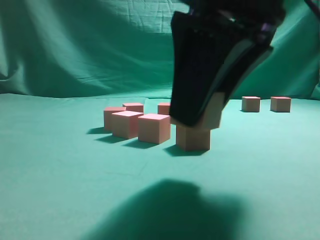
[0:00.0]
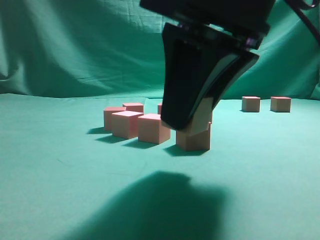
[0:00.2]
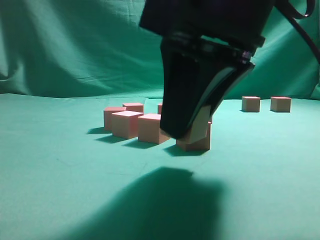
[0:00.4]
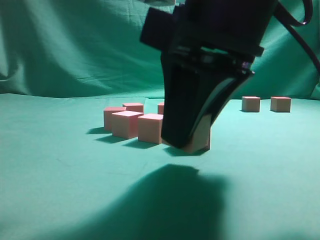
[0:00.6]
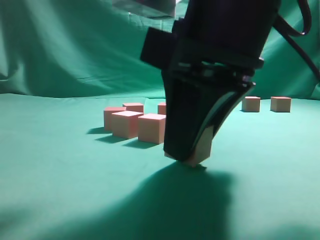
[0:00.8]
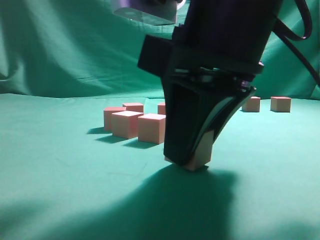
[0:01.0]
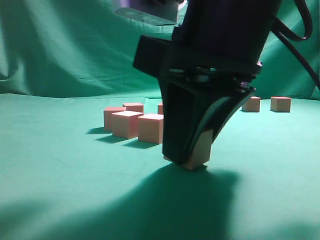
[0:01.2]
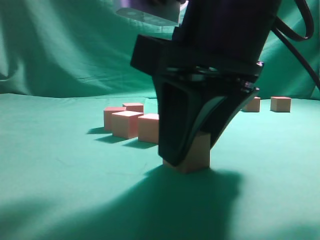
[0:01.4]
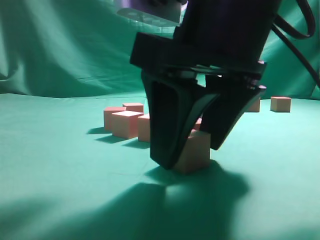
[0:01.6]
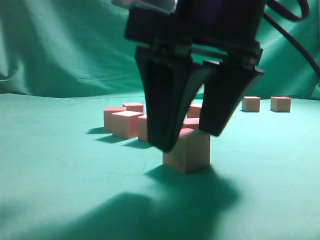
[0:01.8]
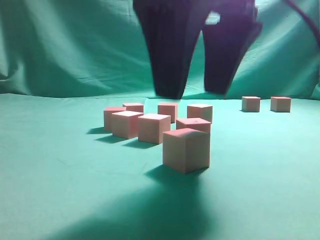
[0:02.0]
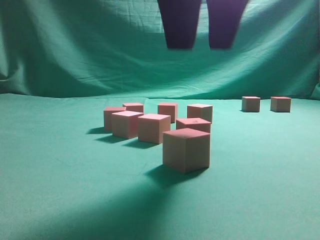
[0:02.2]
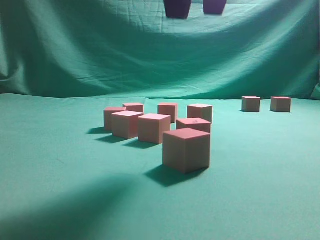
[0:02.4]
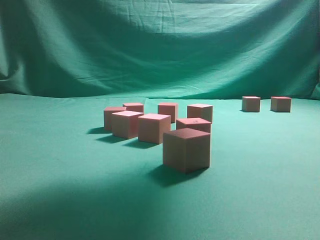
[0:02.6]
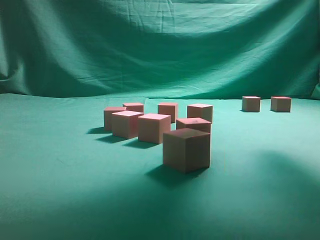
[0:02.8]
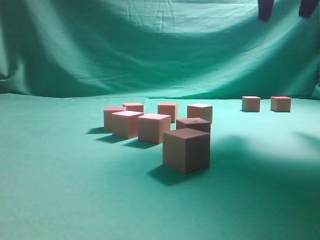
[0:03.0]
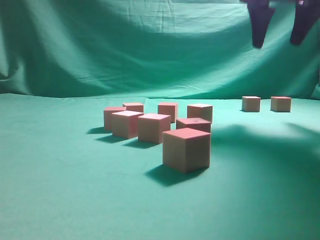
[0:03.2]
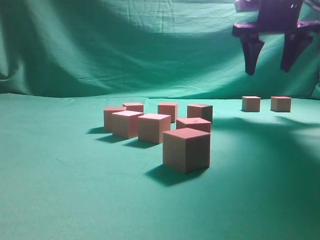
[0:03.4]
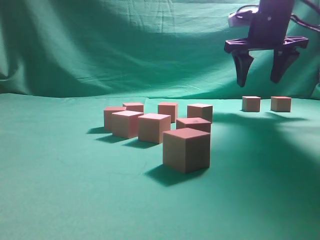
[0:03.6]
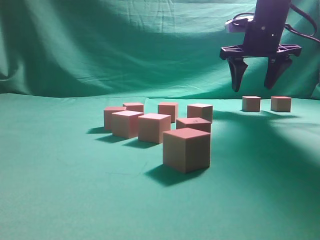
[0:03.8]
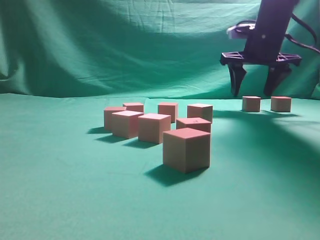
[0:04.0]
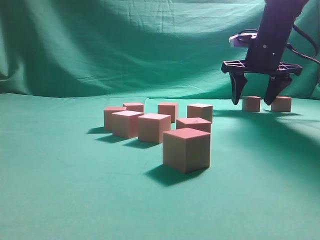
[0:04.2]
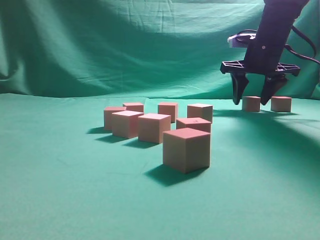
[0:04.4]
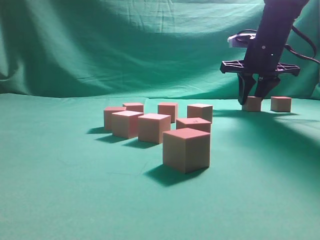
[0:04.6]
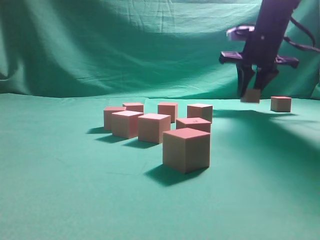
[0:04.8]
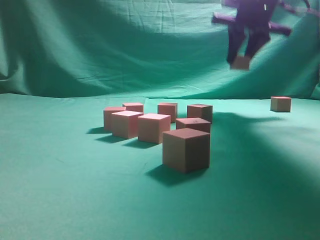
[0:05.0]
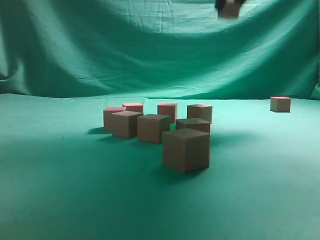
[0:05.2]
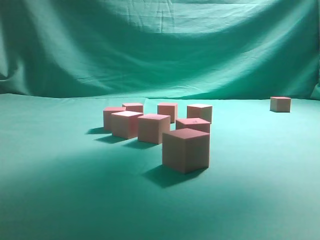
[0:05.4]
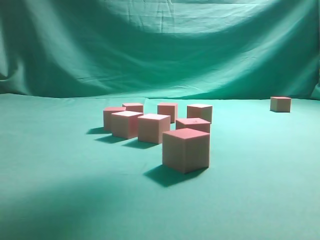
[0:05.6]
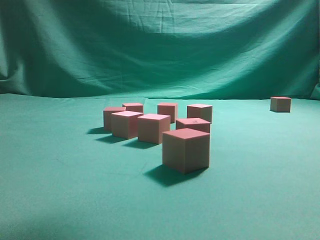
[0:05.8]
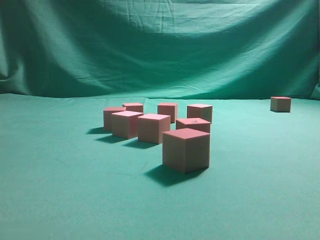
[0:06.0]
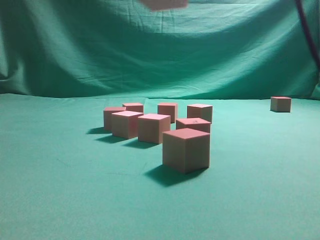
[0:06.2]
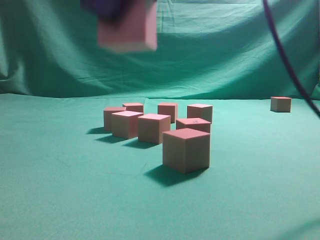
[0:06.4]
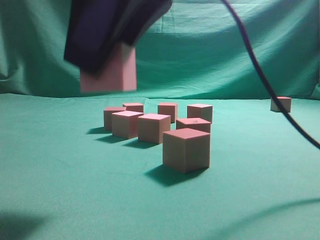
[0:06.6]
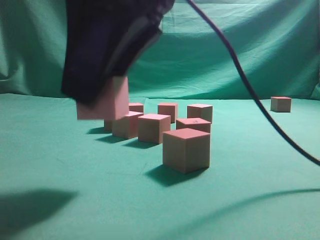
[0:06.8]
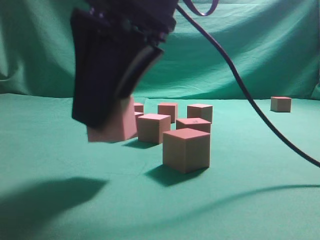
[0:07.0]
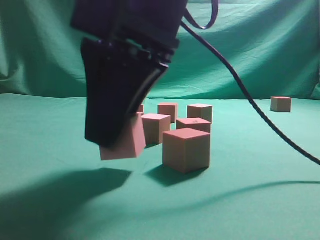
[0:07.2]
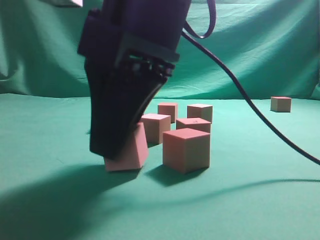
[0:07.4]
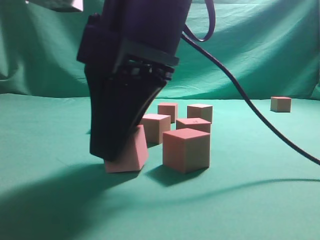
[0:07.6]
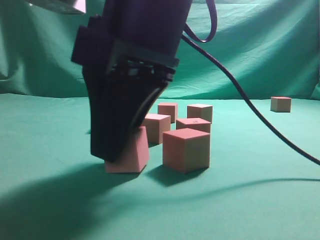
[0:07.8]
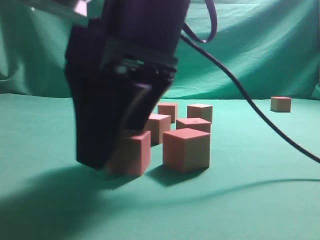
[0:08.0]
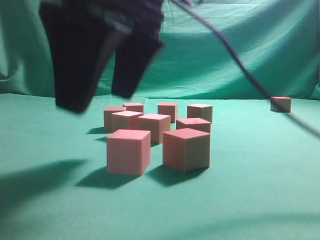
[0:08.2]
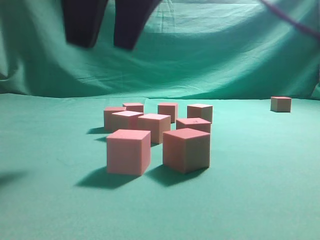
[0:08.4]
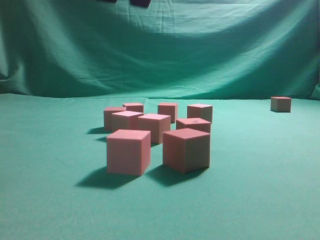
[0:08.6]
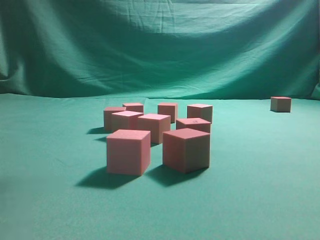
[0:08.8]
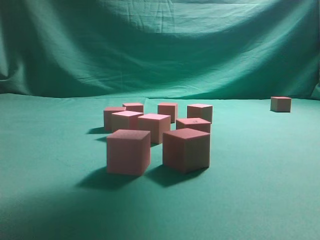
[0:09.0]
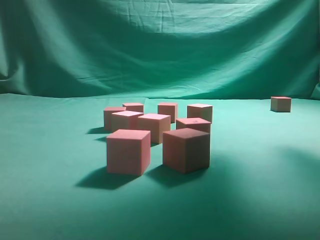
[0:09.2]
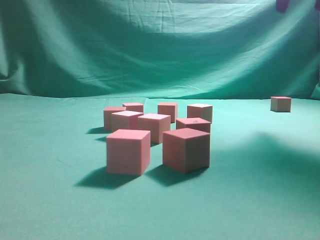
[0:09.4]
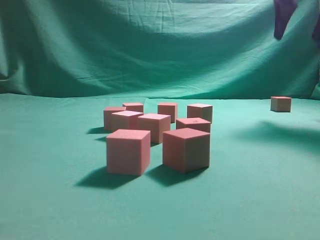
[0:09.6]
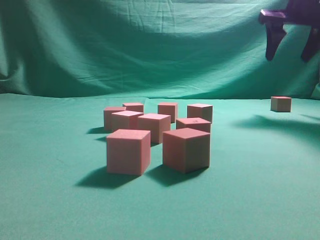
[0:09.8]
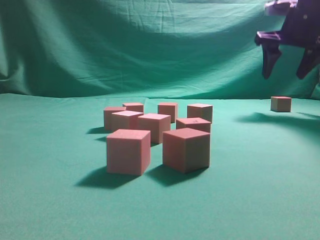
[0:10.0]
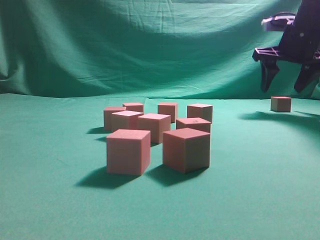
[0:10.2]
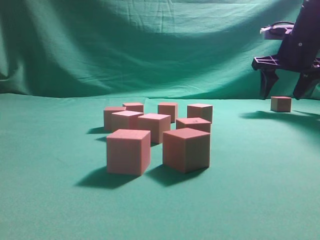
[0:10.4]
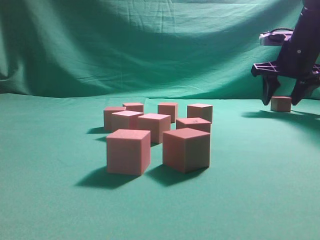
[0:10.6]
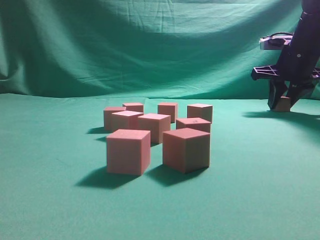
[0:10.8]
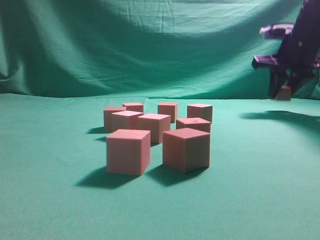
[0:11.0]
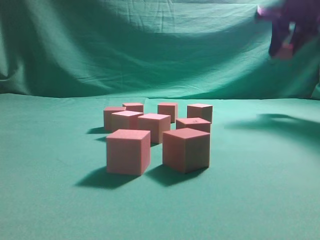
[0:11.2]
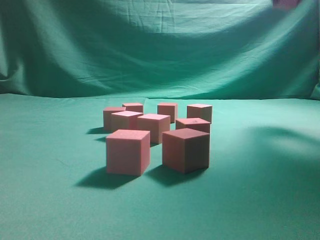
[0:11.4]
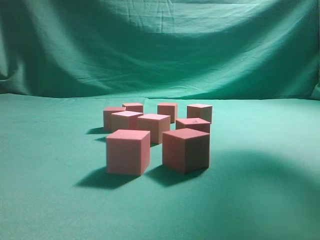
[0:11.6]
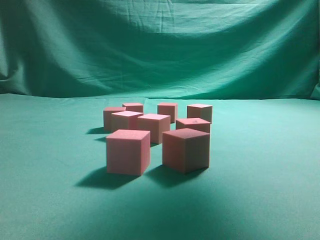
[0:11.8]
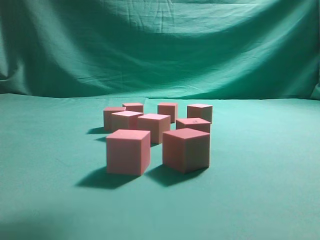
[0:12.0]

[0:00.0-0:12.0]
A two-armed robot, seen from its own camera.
Task of the whole recording: pick up the multiple cubes in two columns one by one and place them in another position on the table.
Step, 0:00.0 to 0:02.4: Place the block at the correct position to assemble the letter S.
Step, 0:02.6 to 0:04.8: Pick up the block on the table.
Step, 0:05.0 to 0:08.4: Place the block at the correct position to assemble the letter S.
Step, 0:08.6 to 0:10.8: Pick up the block on the table.
0:00.0 to 0:01.6: The right gripper opens its fingers.
0:01.6 to 0:03.0: The right gripper shifts about 25 cm forward, upward and to the right.
0:03.0 to 0:04.4: The right gripper travels downward and forward by some 20 cm.
0:04.4 to 0:06.0: The right gripper goes some 35 cm backward, upward and to the left, and closes up.
0:06.0 to 0:07.6: The right gripper moves downward and to the left, about 15 cm.
0:07.6 to 0:09.0: The right gripper shifts approximately 20 cm upward, to the right and forward, and opens its fingers.
0:09.0 to 0:10.4: The right gripper moves forward, downward and to the right, about 30 cm.
0:10.4 to 0:12.0: The right gripper heads backward, upward and to the left, covering some 30 cm, and closes up.

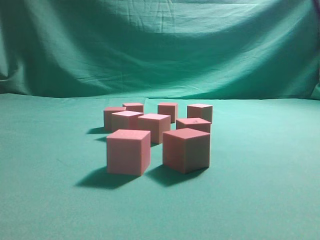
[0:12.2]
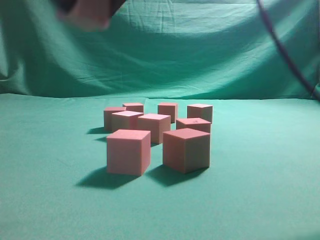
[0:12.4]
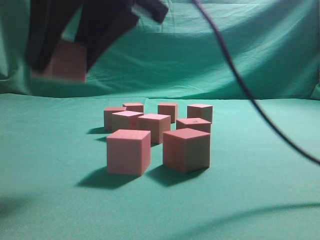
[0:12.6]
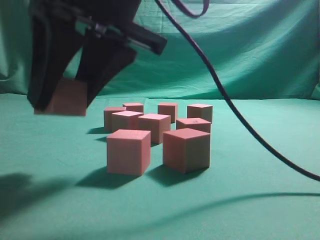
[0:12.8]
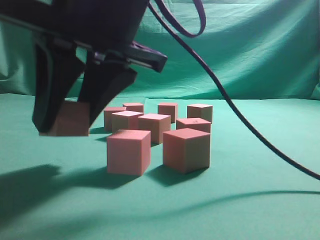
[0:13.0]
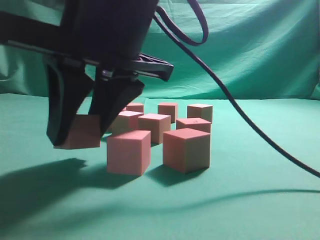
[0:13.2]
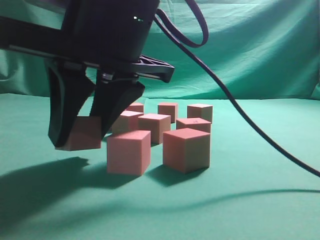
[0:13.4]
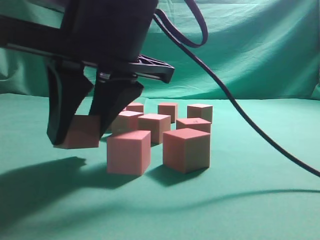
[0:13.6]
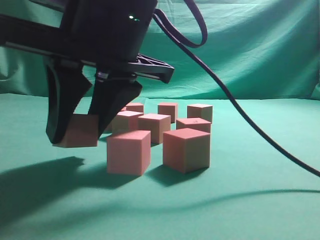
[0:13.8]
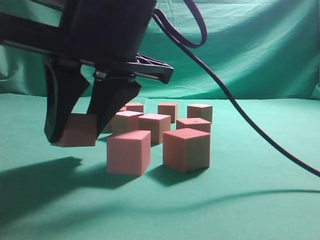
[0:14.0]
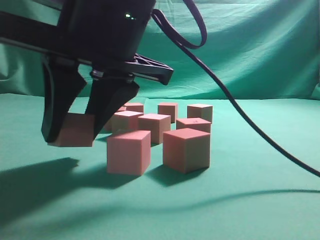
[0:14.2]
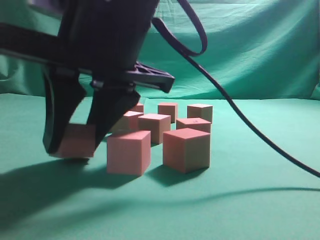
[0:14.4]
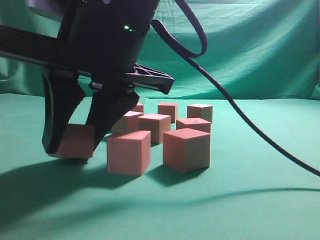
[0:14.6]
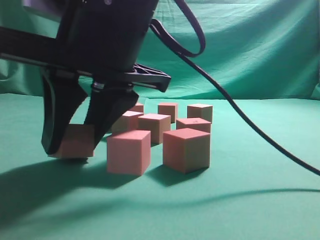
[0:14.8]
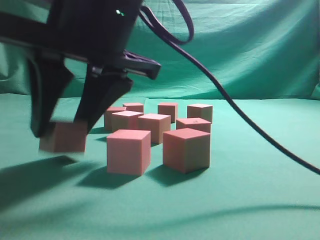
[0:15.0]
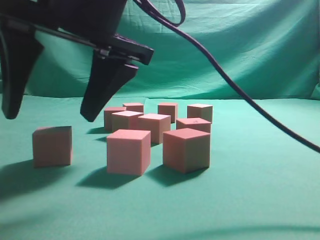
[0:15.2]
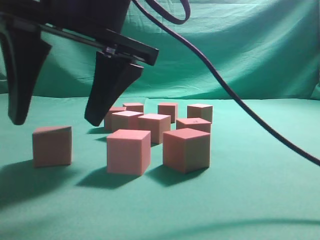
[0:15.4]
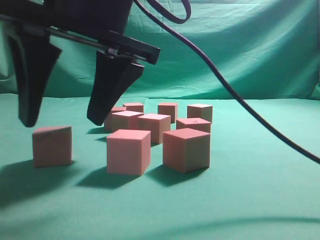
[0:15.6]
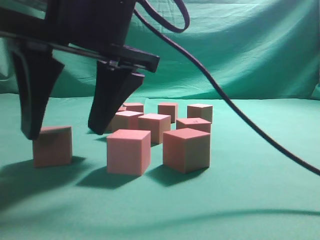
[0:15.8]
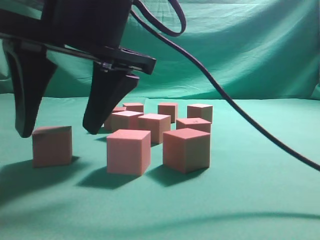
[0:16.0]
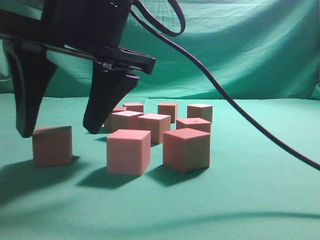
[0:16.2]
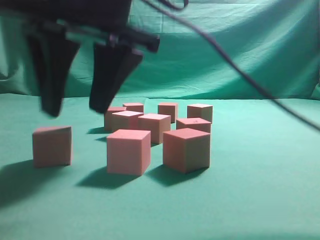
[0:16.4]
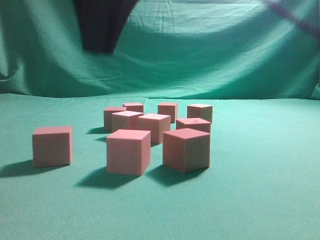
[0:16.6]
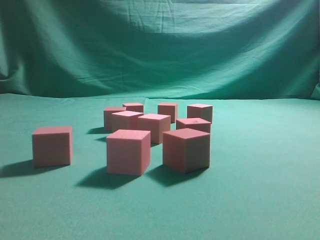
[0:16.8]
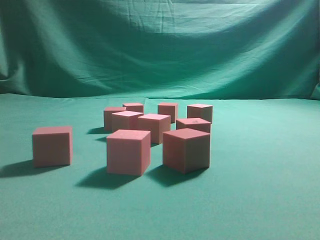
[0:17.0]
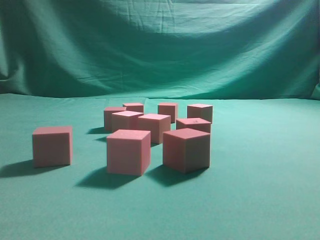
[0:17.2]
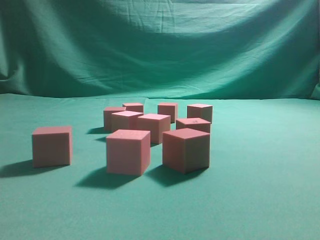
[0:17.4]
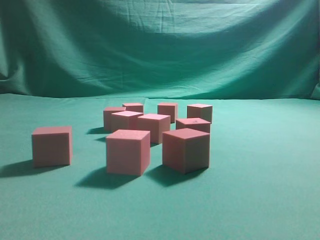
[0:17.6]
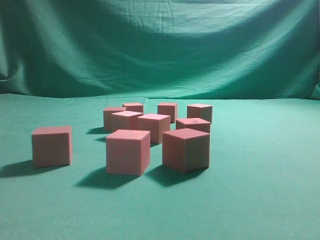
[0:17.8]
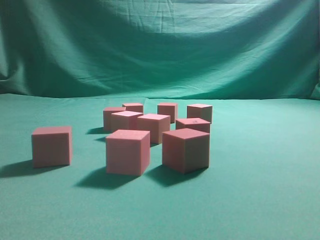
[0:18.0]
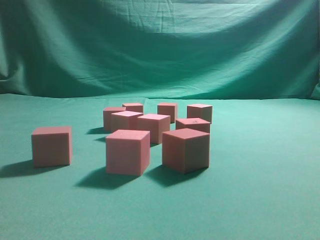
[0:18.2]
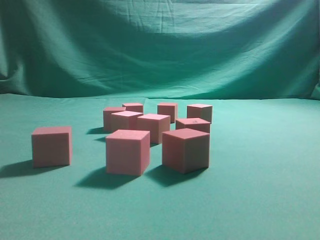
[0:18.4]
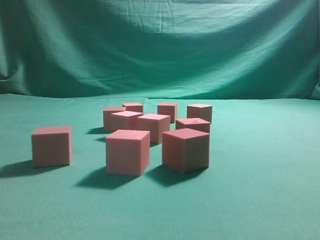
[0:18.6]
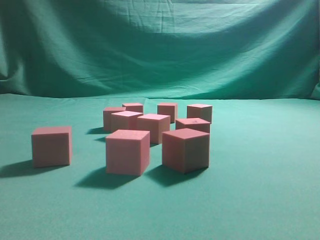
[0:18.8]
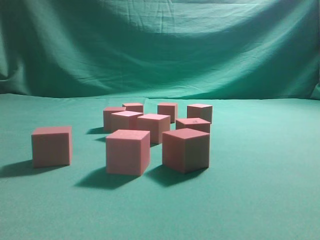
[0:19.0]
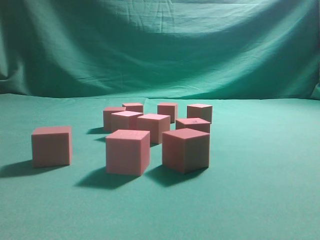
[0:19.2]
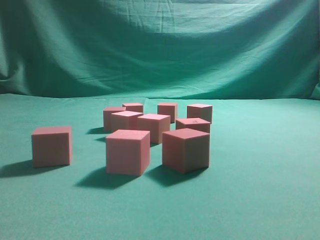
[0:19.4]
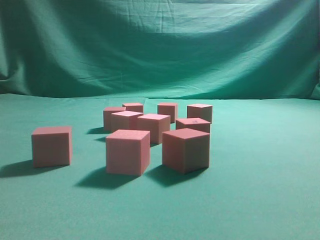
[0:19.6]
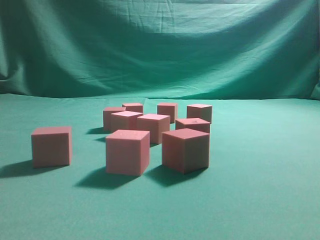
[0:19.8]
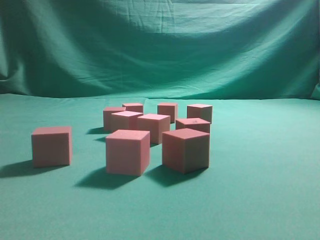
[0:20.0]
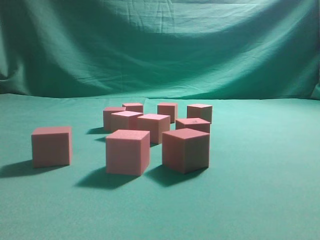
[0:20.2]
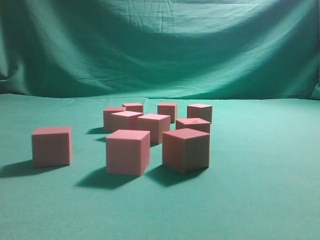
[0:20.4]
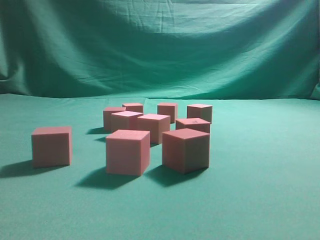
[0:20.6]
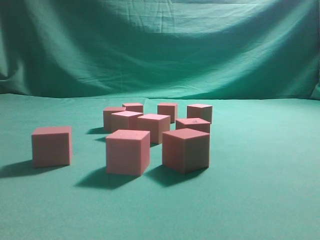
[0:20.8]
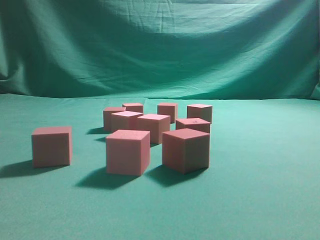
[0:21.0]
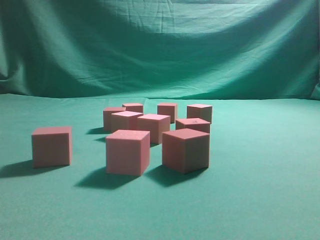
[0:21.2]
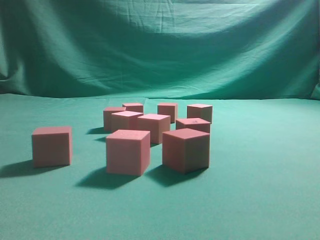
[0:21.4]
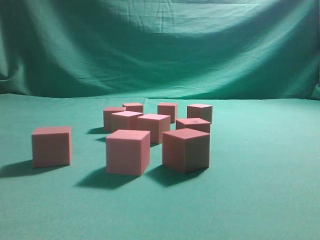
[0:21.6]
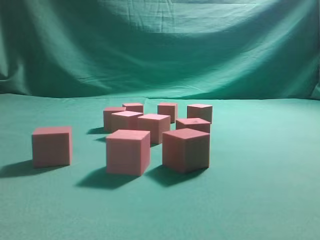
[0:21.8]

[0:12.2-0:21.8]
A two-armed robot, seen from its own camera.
Task of the whole recording: pick up the multiple cubes in two columns one by one and place them in another position on the table.
Step, 0:12.2 to 0:16.6: Place the block at the correct position to assemble the letter S.
0:12.2 to 0:13.8: The right gripper heads downward and to the left, covering roughly 15 cm.
0:13.8 to 0:15.4: The right gripper opens up.
0:15.4 to 0:17.0: The right gripper goes some 20 cm upward, and closes up.
